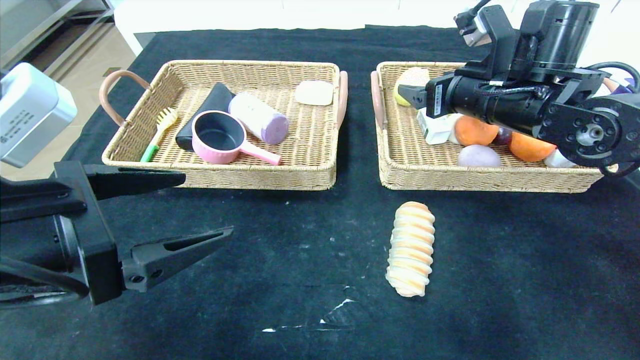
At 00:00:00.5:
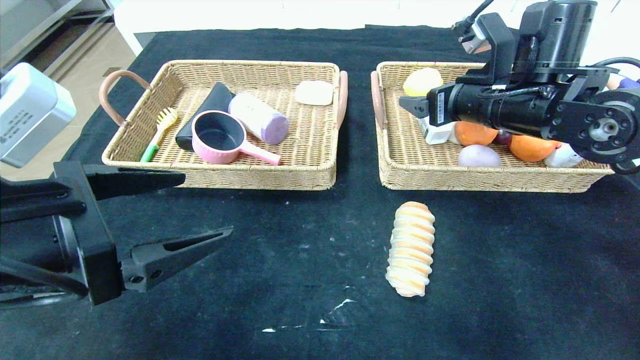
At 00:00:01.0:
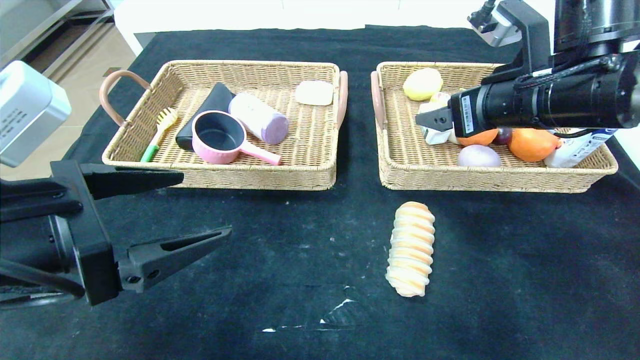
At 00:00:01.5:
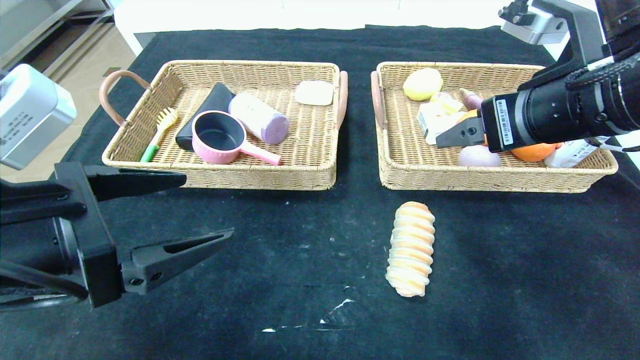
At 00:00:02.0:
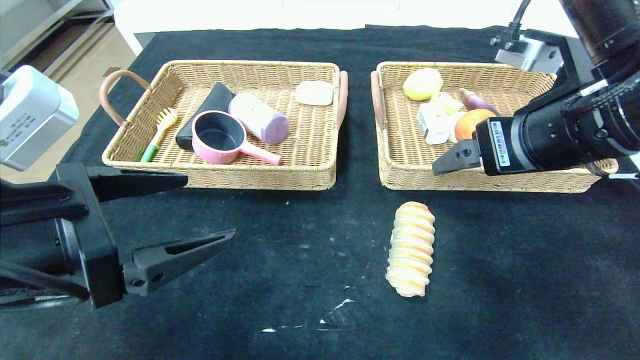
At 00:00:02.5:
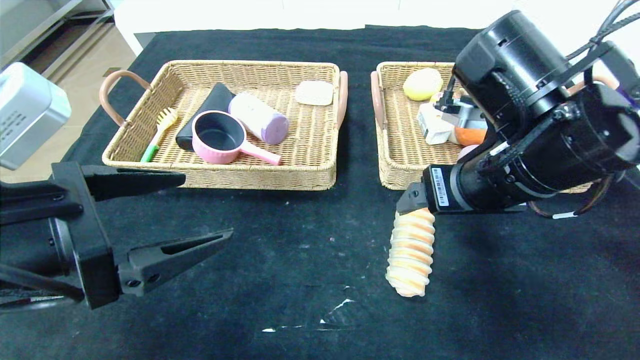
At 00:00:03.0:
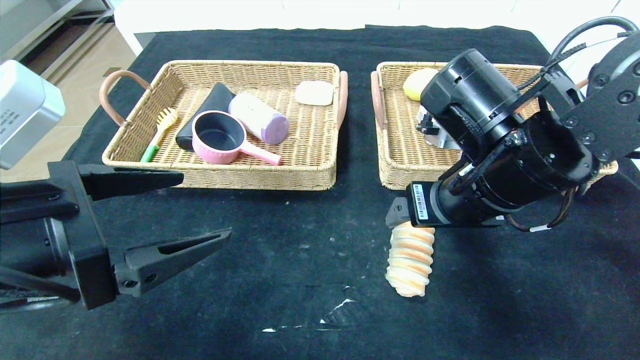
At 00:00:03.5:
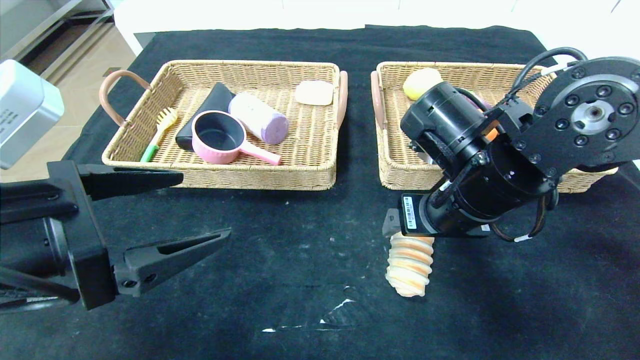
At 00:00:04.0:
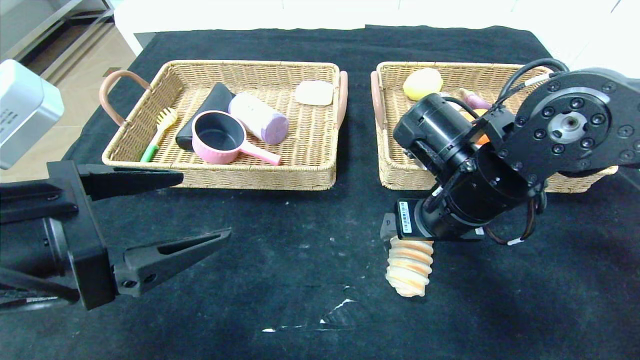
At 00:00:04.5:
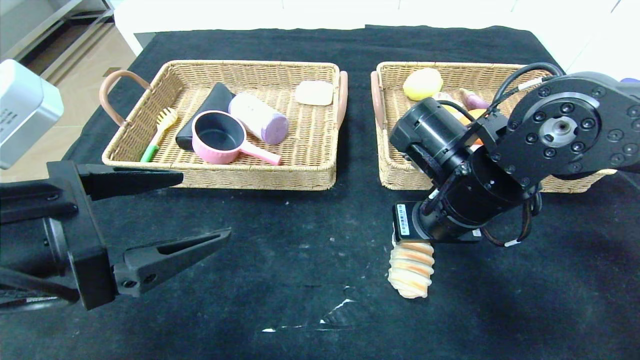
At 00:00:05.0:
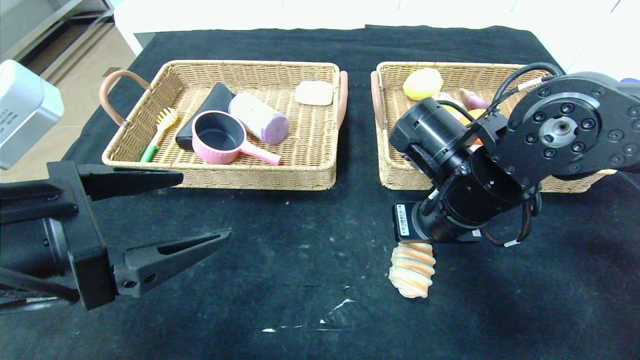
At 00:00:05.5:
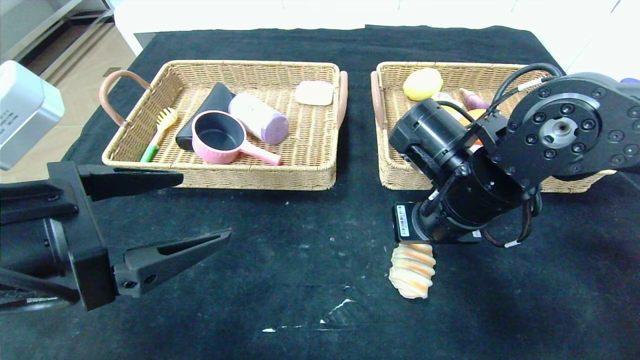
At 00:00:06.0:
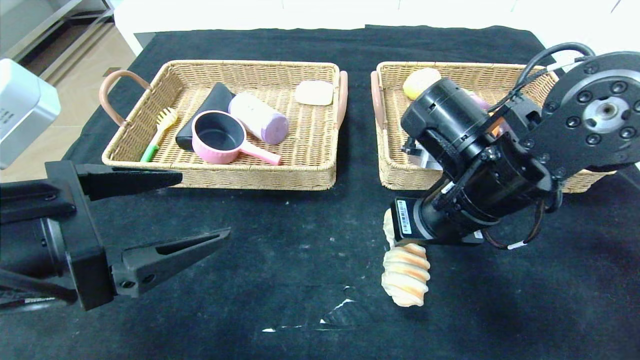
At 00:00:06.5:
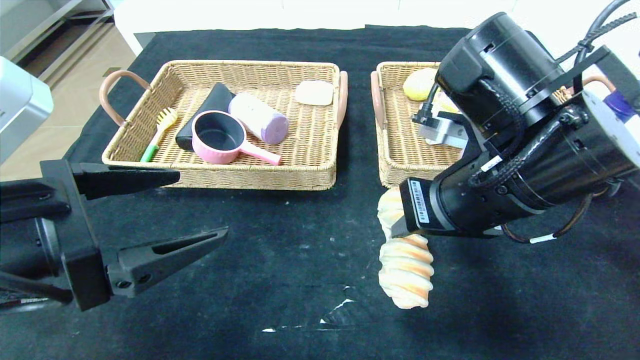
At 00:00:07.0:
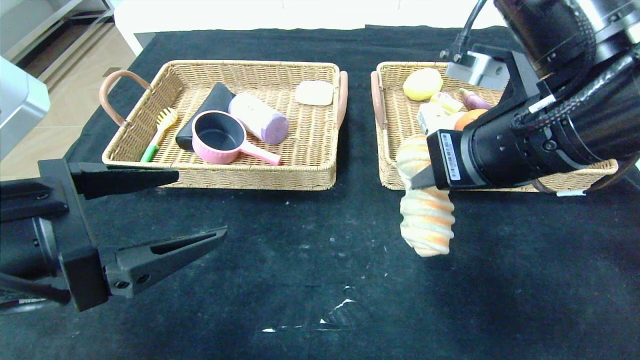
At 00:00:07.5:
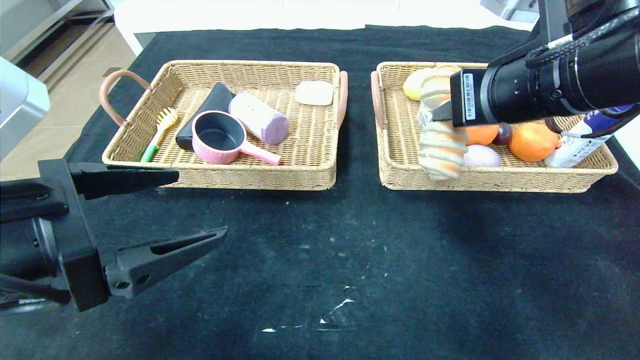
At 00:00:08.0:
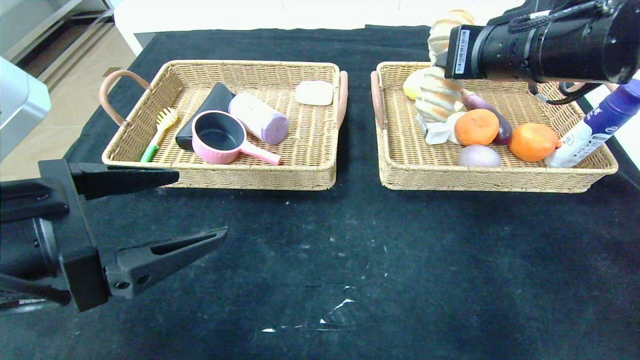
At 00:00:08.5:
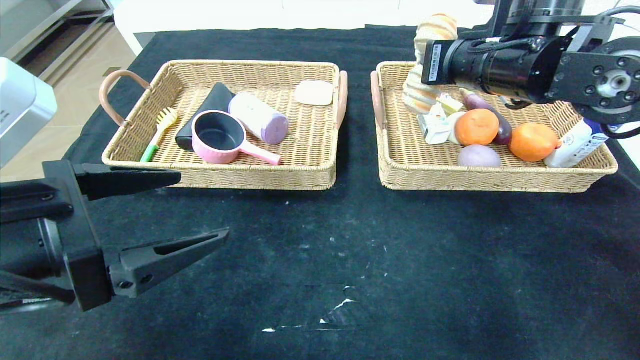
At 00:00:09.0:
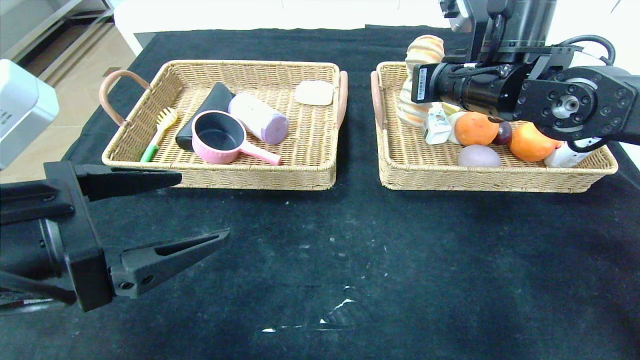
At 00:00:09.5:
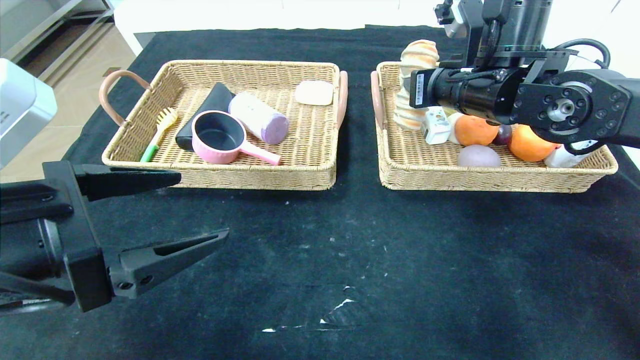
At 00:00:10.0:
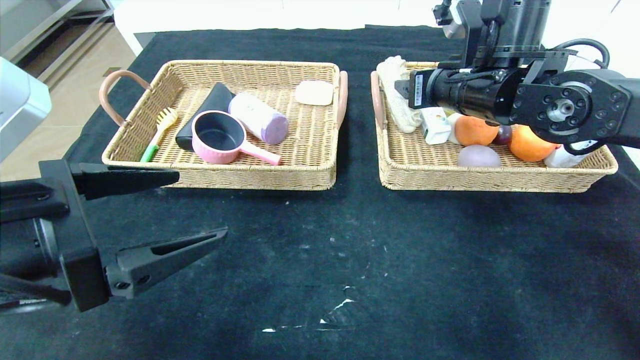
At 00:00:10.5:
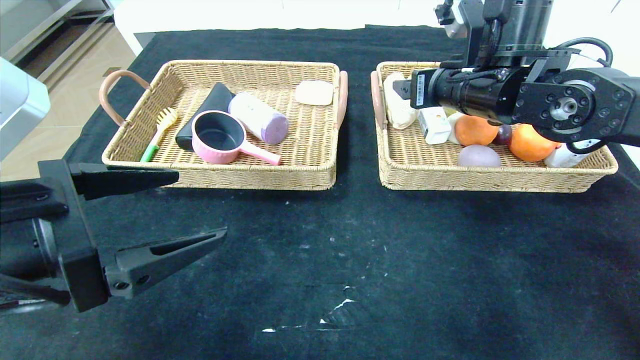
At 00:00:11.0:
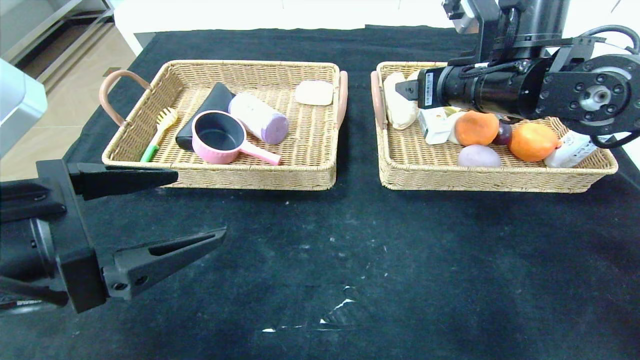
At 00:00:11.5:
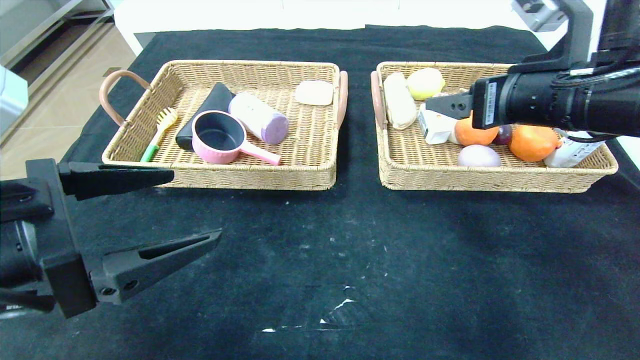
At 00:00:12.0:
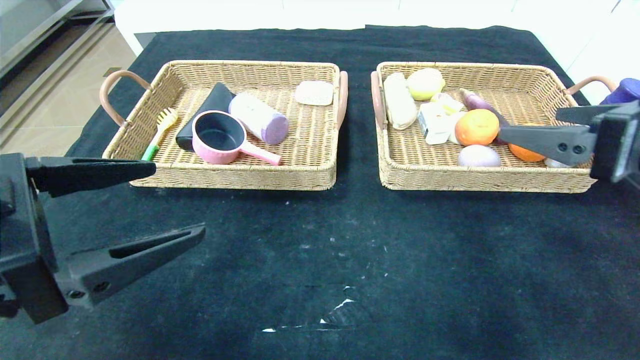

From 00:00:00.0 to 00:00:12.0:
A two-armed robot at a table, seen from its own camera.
Step, from 00:00:00.0 to 00:00:10.0: Grasp the long bread and put it in the right basket.
From 00:00:00.0 to 00:00:02.0: The right gripper travels backward by some 15 cm.
From 00:00:02.0 to 00:00:04.0: The right gripper shifts approximately 10 cm downward and to the left.
From 00:00:04.0 to 00:00:06.0: The right gripper closes up.
From 00:00:06.0 to 00:00:08.0: The right gripper heads upward, to the right and forward, covering about 15 cm.
From 00:00:08.0 to 00:00:10.0: The right gripper is displaced forward by approximately 5 cm, and opens up.
From 00:00:10.0 to 00:00:12.0: The right gripper shifts roughly 25 cm backward and to the right.

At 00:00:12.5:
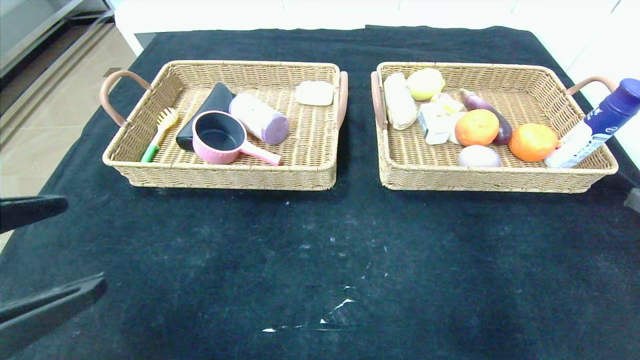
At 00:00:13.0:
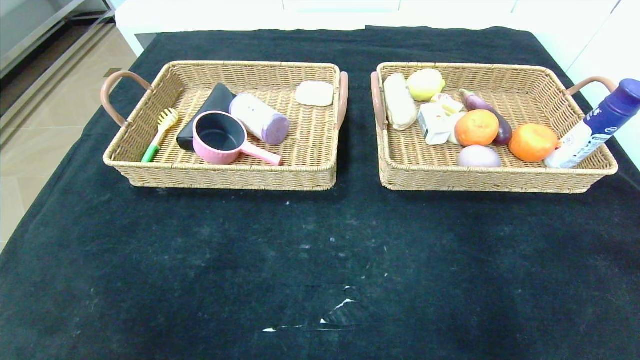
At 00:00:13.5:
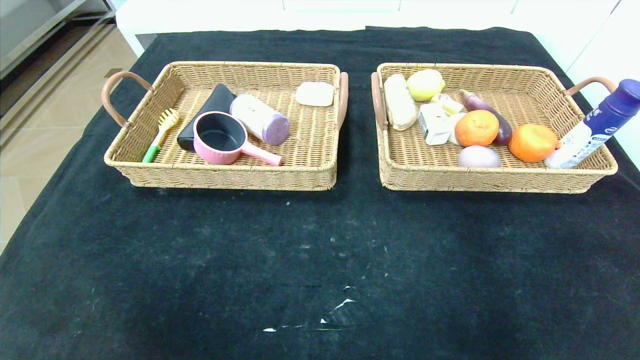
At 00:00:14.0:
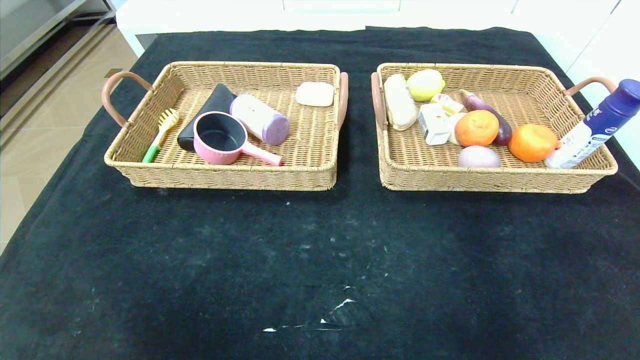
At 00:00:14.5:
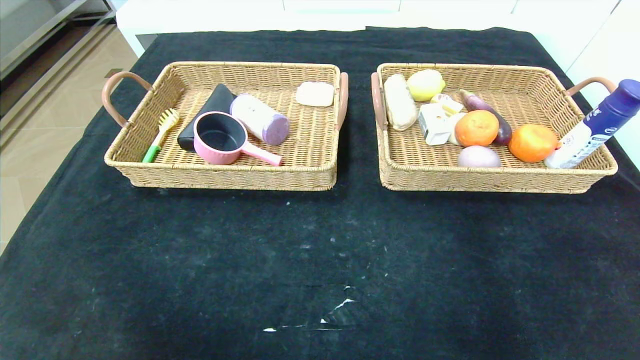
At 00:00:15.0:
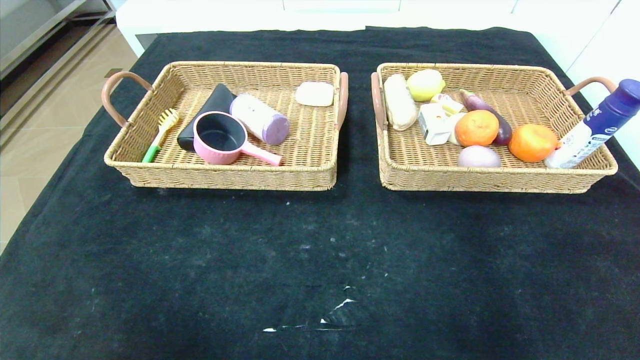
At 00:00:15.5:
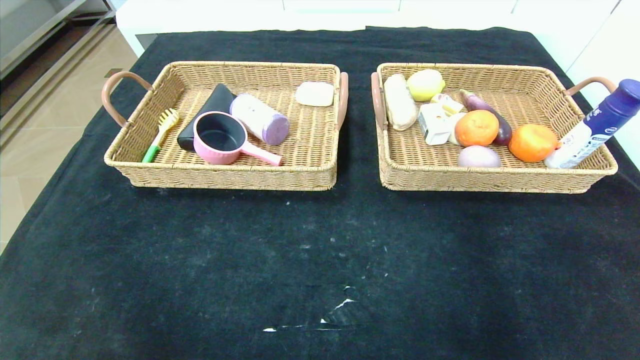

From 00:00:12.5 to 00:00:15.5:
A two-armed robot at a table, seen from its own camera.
From 00:00:12.5 to 00:00:14.0: The left gripper is displaced backward by roughly 20 cm. The right gripper is displaced backward and downward by about 20 cm.
